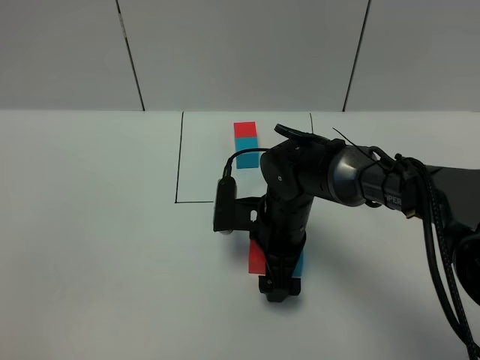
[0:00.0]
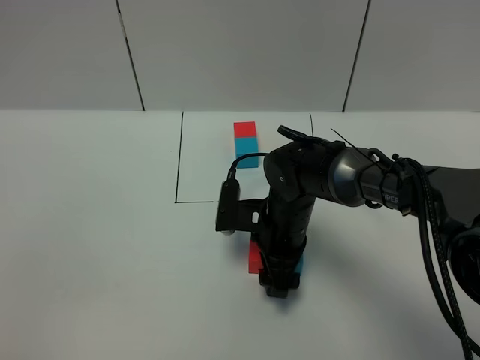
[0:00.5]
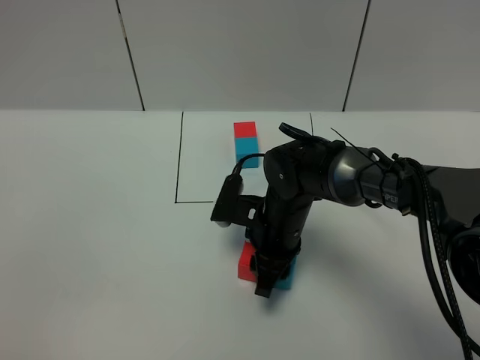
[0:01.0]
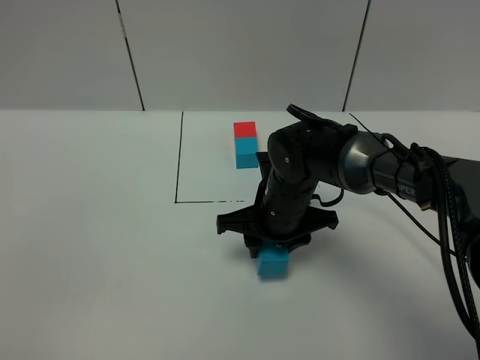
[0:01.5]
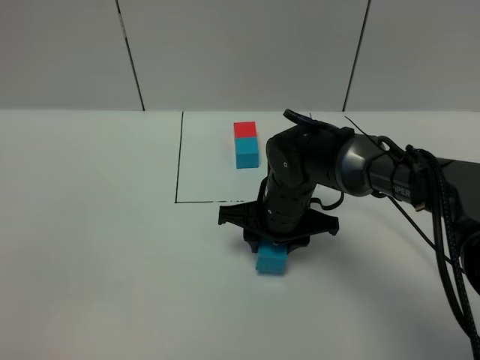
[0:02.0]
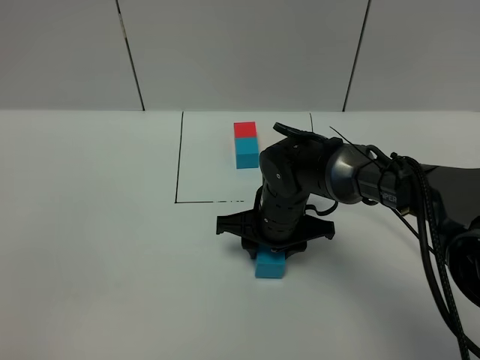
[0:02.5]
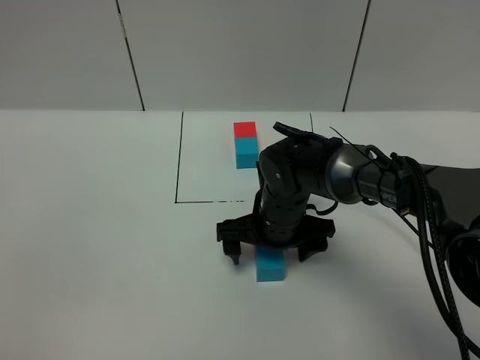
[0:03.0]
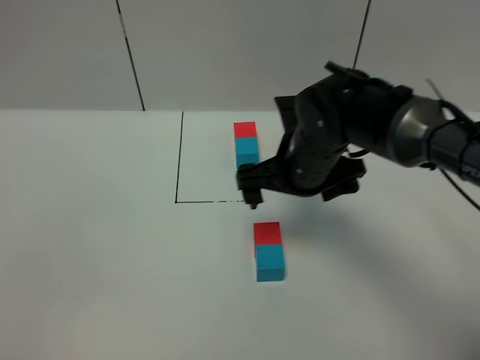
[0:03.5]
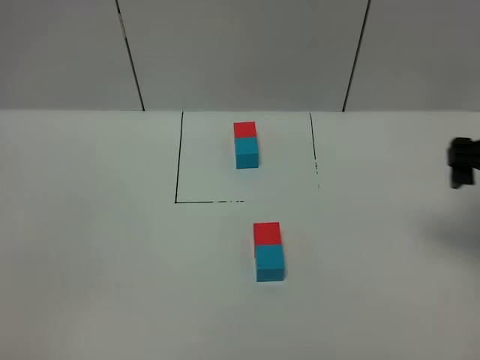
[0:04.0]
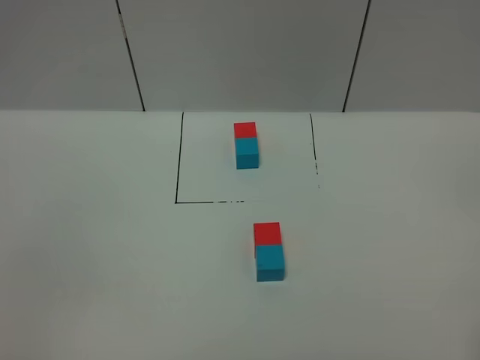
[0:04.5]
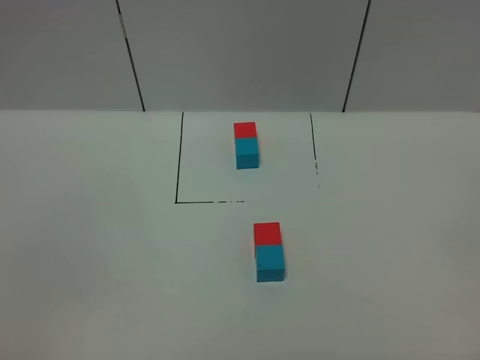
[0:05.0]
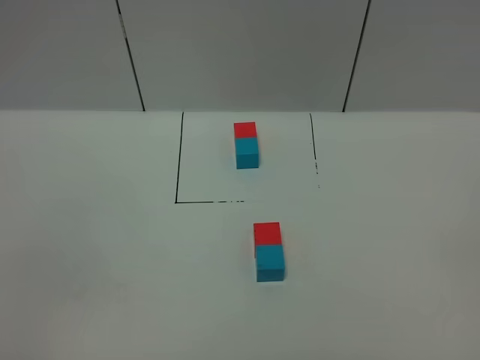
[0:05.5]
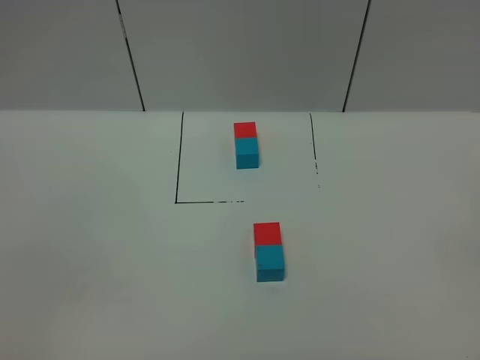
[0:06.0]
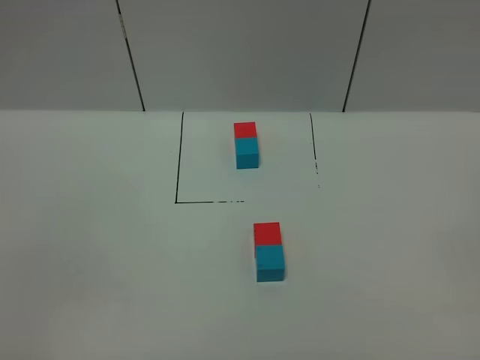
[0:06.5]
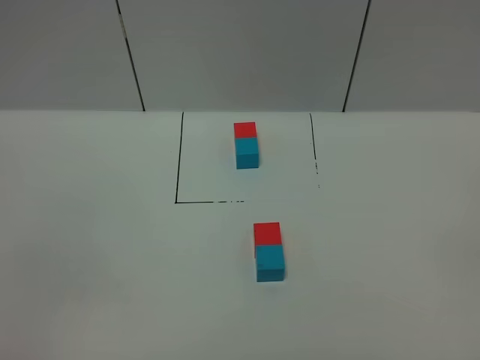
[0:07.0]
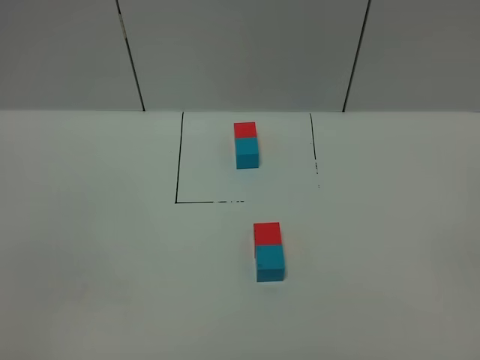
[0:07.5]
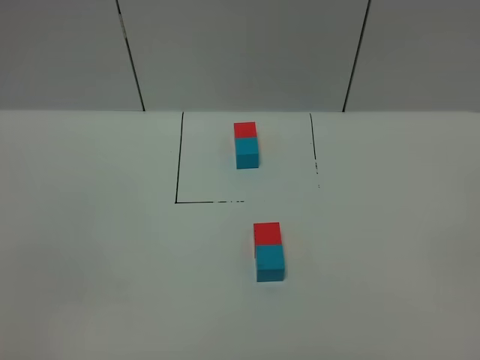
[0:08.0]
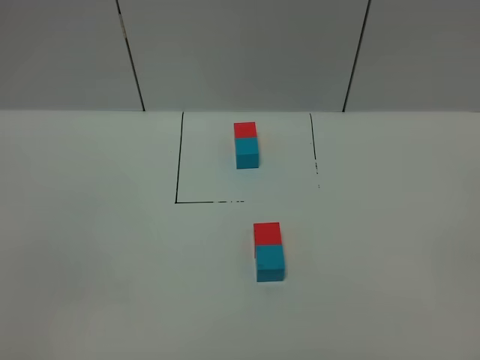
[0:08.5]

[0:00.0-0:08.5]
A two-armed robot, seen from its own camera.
Task of the whole recording: According to the building block template in front, assemble the scattered blocks together.
Step, 0:00.0 to 0:03.0: Adjust the pose of the building blocks.
0:00.0 to 0:02.0: The right gripper closes its fingers.
0:02.0 to 0:04.0: The right gripper is displaced to the right and upward by approximately 30 cm, and opens its fingers.
0:04.0 to 0:06.5: The right gripper goes some 30 cm backward.
0:06.5 to 0:08.5: The two grippers keep their place.
